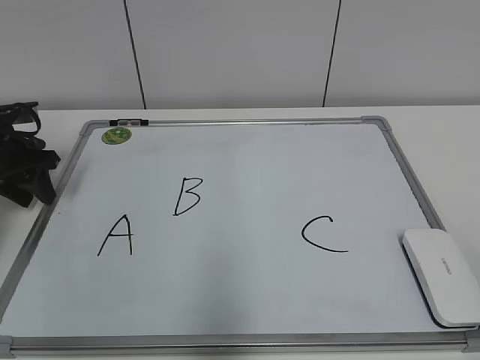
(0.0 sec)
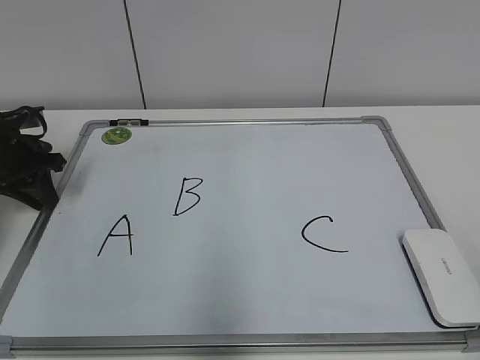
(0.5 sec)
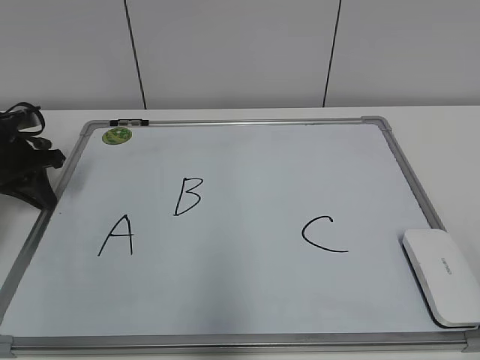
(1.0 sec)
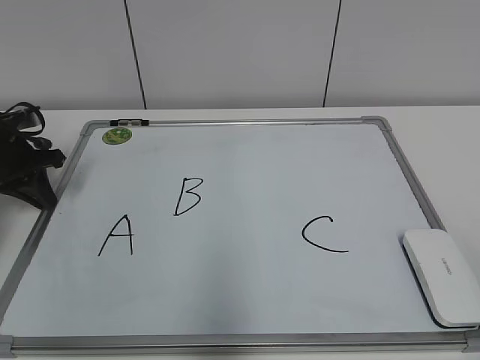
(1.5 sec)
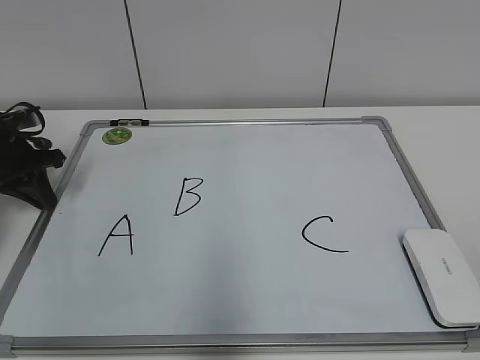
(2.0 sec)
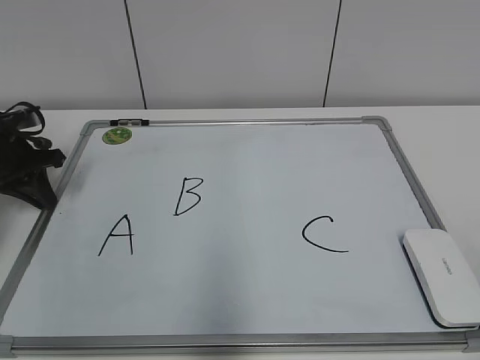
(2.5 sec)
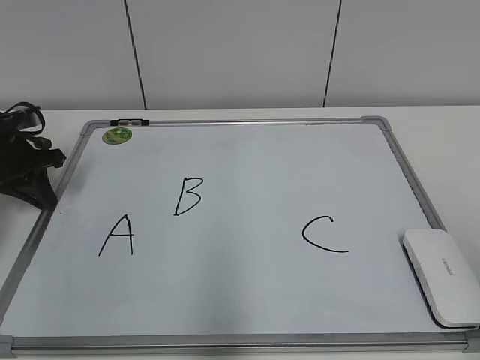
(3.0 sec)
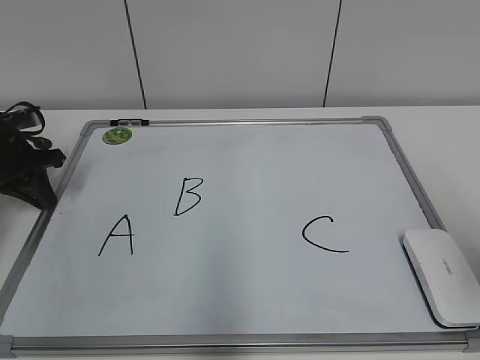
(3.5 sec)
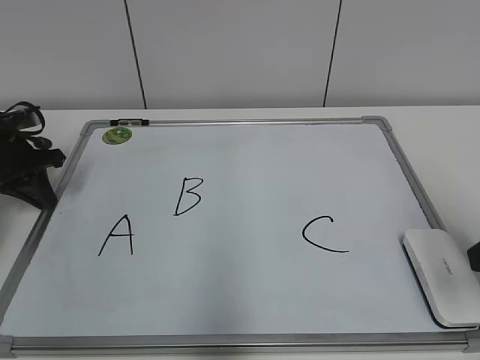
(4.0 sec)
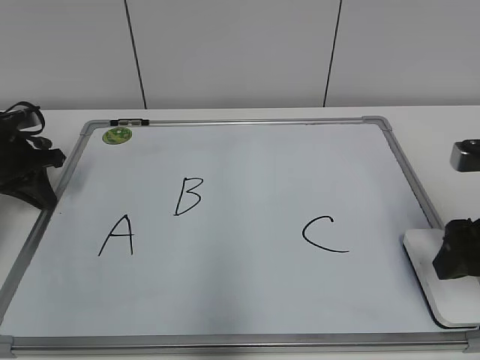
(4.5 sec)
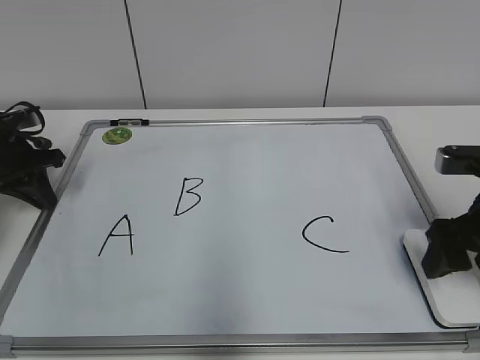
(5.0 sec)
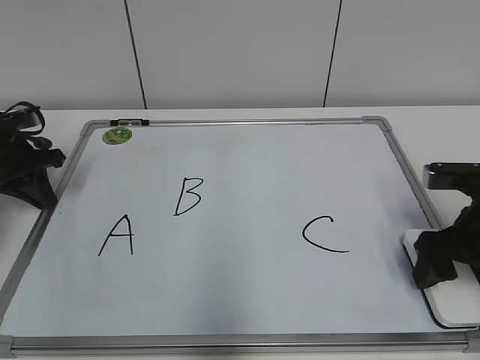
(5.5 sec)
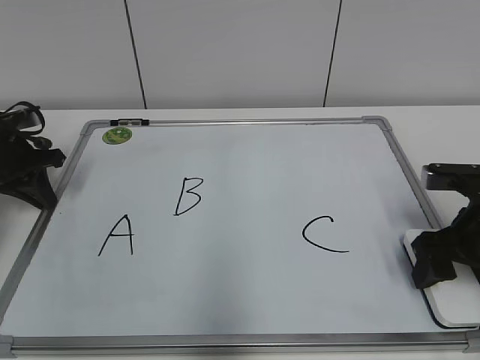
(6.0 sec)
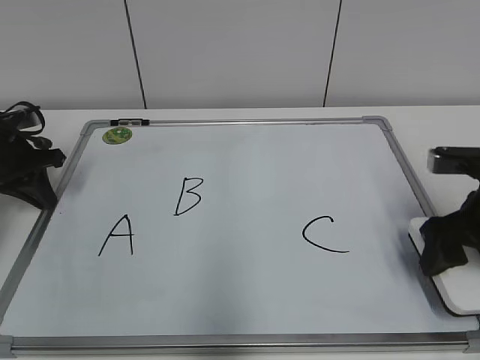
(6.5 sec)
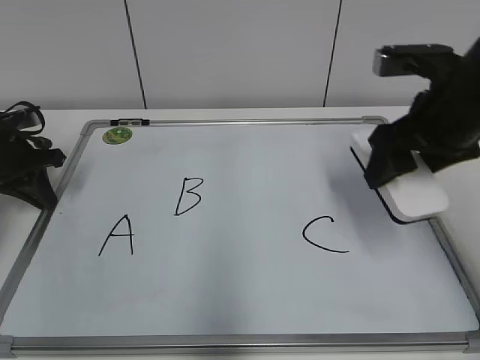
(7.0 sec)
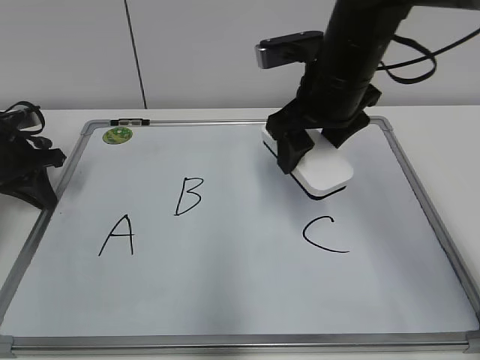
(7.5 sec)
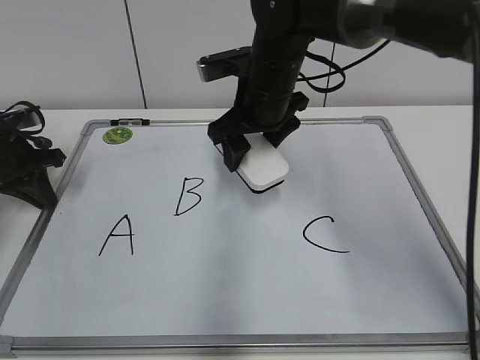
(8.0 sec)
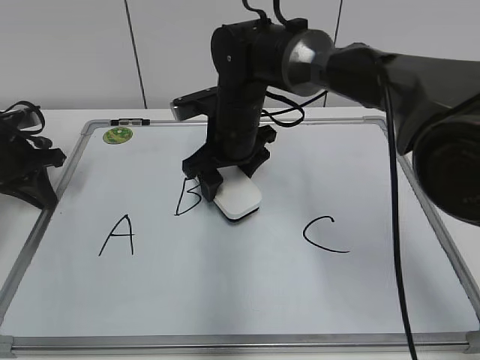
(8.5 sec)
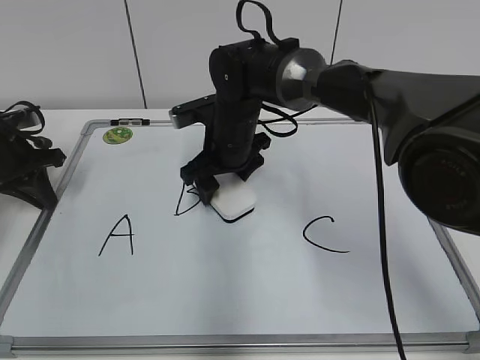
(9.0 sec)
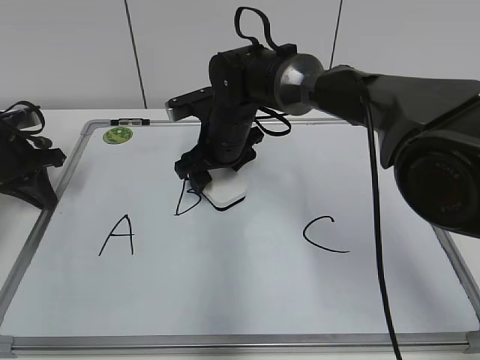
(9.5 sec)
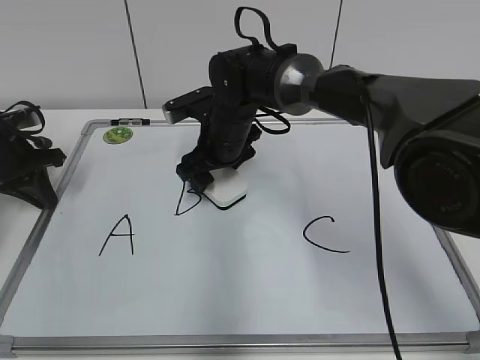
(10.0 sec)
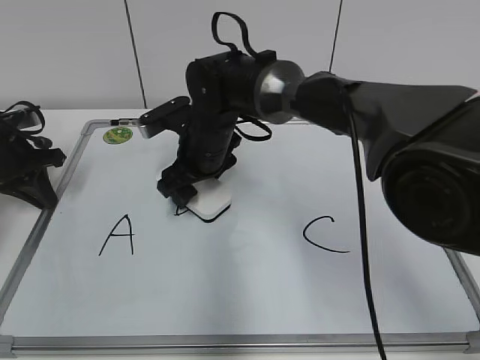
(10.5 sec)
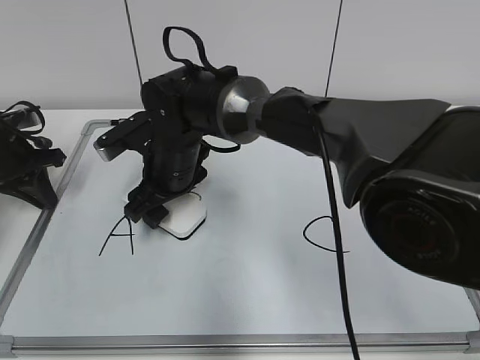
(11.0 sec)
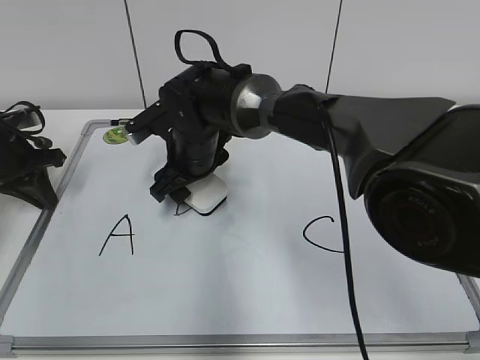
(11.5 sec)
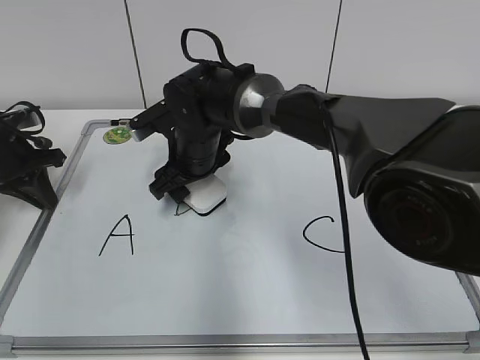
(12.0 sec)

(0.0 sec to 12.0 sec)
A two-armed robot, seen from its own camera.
Task of the whole recording: pick up the eraser on the blackboard and erase the letter "B".
Step, 1.0 sec - 6.0 sec: Grab the eraser with your right hand.
0.0 sec - 2.0 sec: The left gripper closes its fingers.
2.0 sec - 4.0 sec: The right gripper moves forward, roughly 20 cm.
4.0 sec - 6.0 sec: The right gripper heads forward and downward, covering some 10 cm.
6.0 sec - 8.0 sec: The right gripper heads to the left and forward, covering some 25 cm.
8.0 sec - 10.0 sec: The right gripper moves downward, about 10 cm.

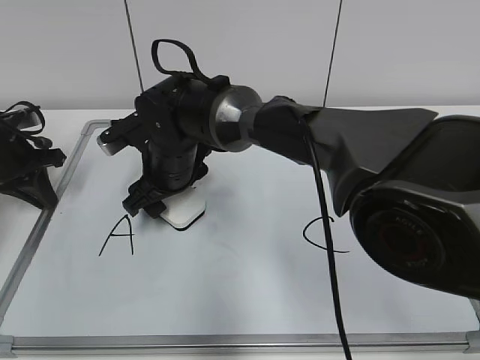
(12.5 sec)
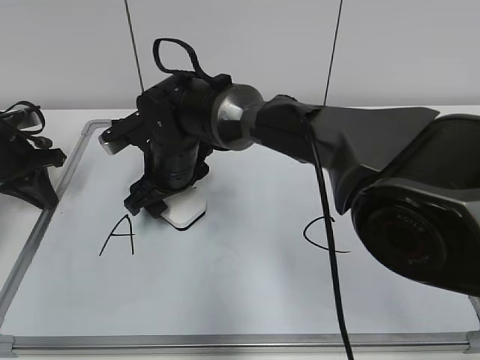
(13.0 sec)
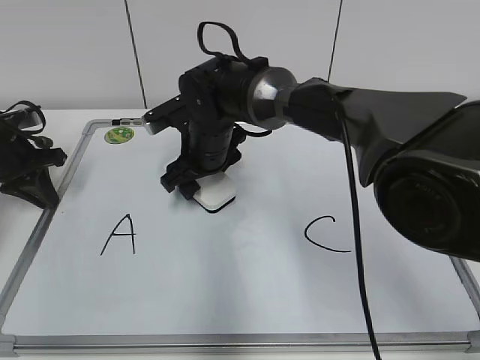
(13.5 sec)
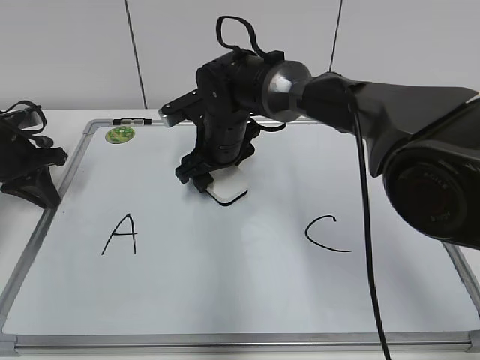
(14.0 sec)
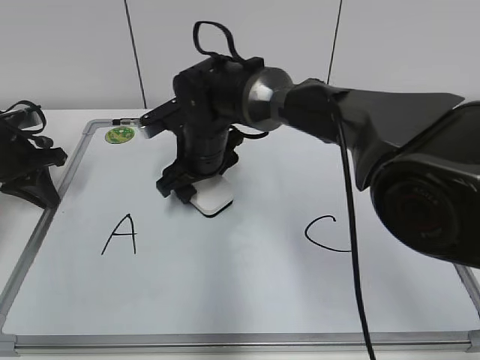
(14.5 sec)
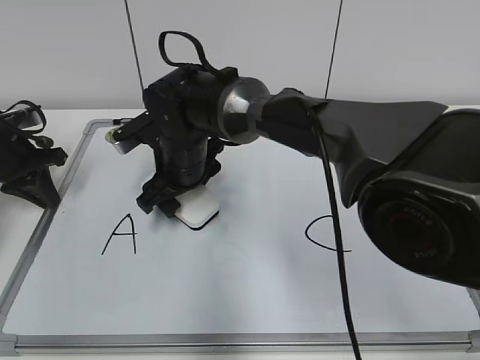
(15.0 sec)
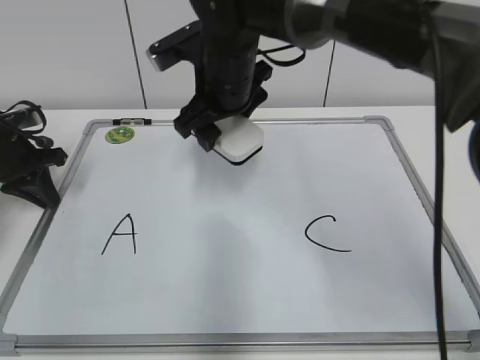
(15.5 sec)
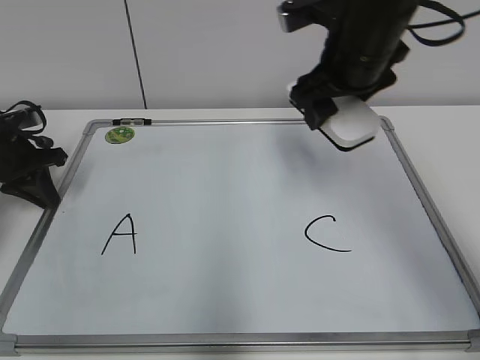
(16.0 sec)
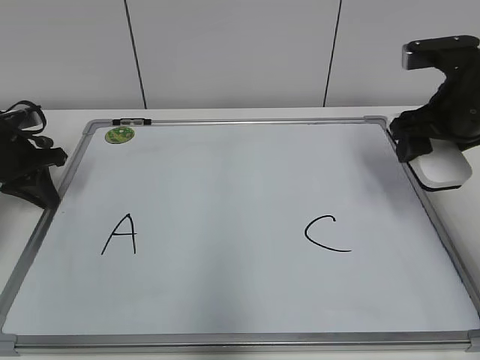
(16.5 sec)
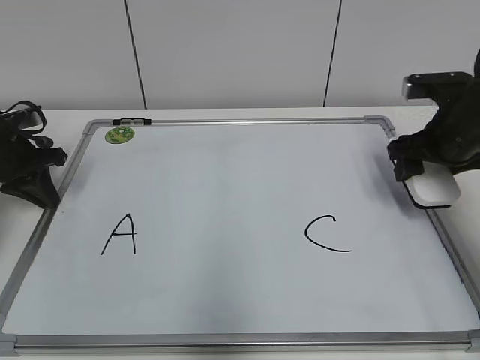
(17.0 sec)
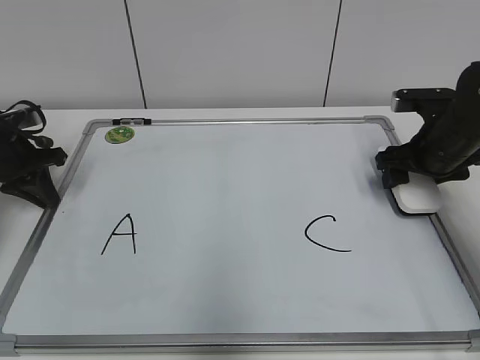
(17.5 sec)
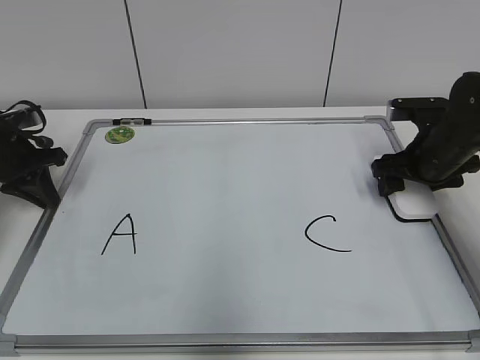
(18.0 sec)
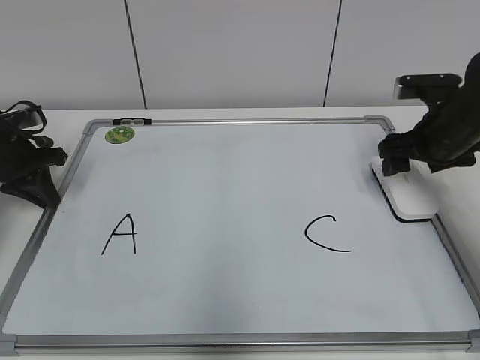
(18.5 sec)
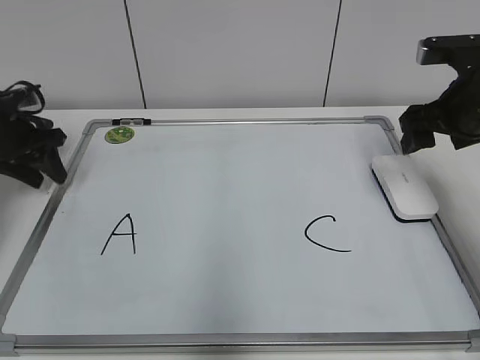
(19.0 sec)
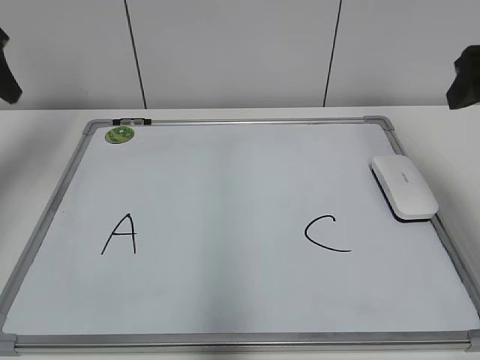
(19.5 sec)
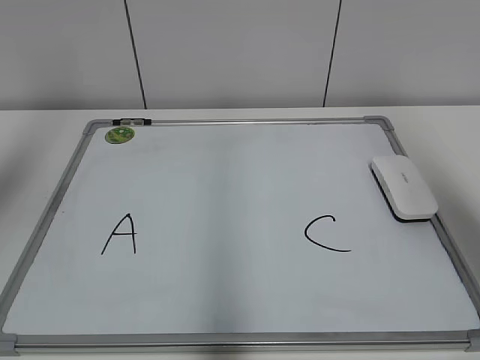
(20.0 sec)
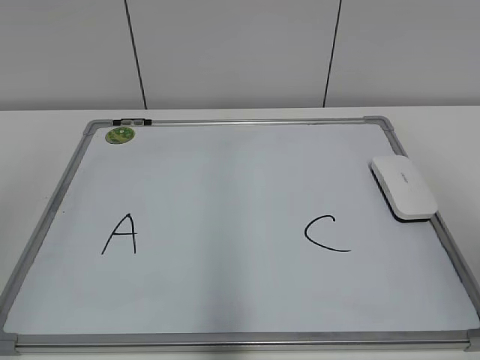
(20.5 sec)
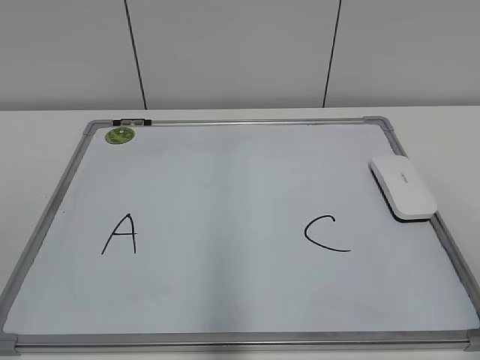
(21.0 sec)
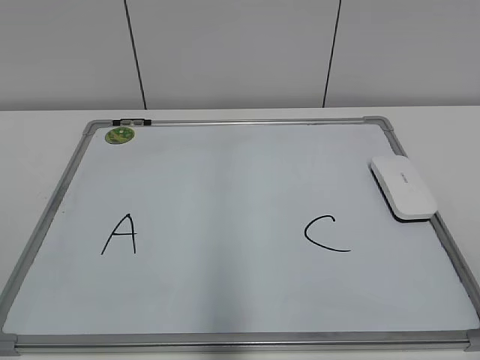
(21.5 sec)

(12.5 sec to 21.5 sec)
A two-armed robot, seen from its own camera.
Task of the whole recording: pick up the eraser on the blackboard and erase the letter "B".
Step, 12.5 sec - 15.0 sec: Erase the letter B with your right hand.
Step, 15.5 sec - 17.5 sec: Put down the eraser with your right hand.
14.5 sec - 17.0 sec: The right gripper heads to the right, covering approximately 30 cm.
17.0 sec - 19.5 sec: The right gripper travels upward and backward by approximately 15 cm. Meanwhile the left gripper shifts some 20 cm upward, and opens its fingers.
19.5 sec - 21.5 sec: Both grippers travel together backward, approximately 35 cm.

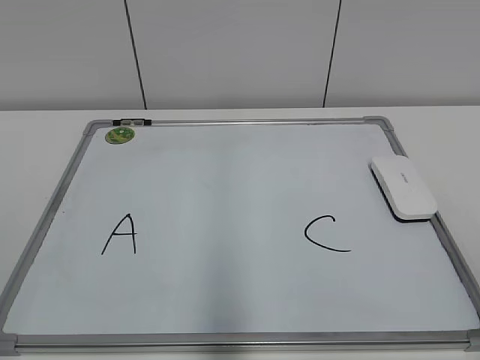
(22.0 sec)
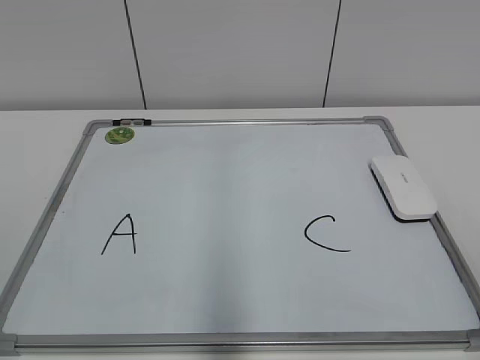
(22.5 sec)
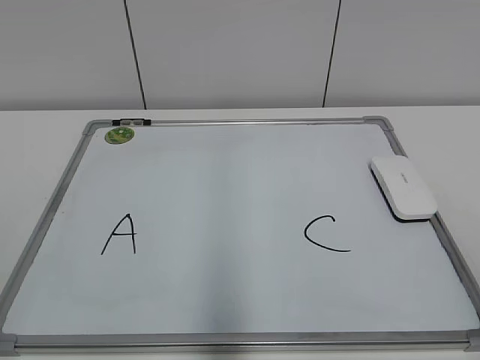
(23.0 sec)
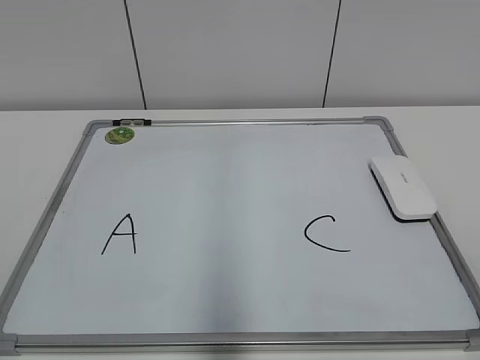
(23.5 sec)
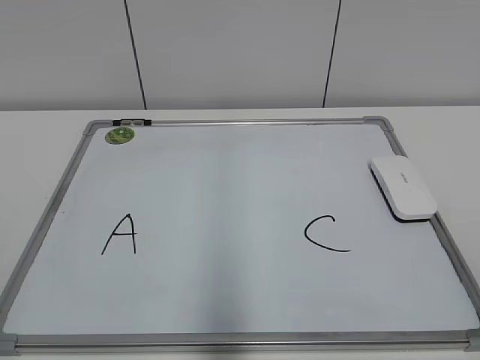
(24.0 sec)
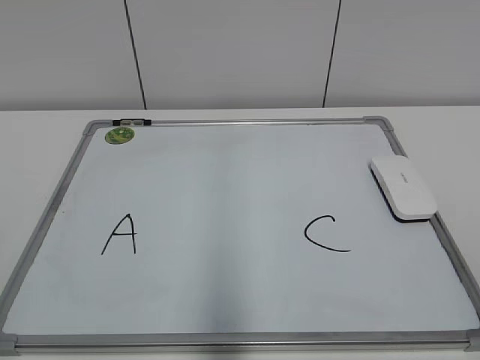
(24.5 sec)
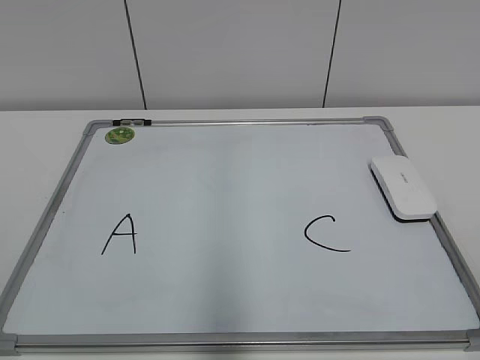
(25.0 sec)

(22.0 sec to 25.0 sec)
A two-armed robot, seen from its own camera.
Task of the whole recording: pick up the eraser on the blackboard and erase the letter "B".
23.5 sec - 25.0 sec: Both grippers stay put.

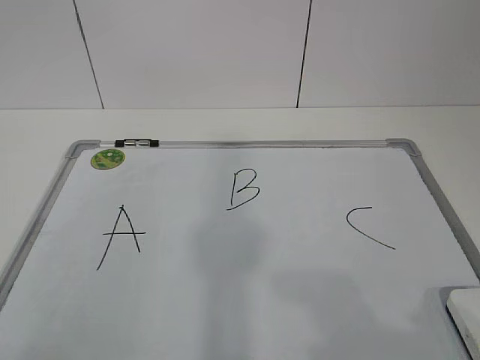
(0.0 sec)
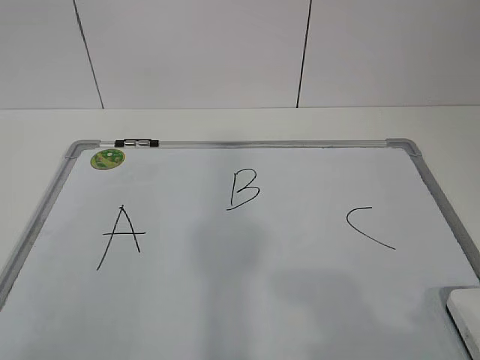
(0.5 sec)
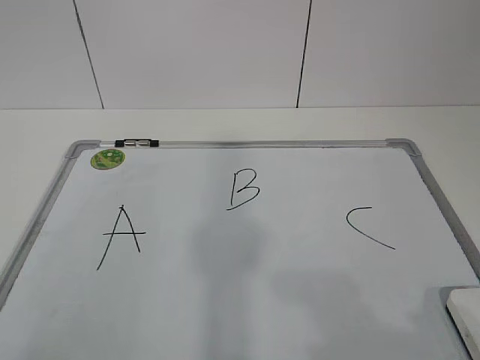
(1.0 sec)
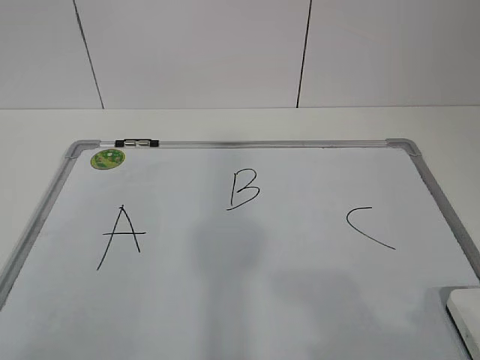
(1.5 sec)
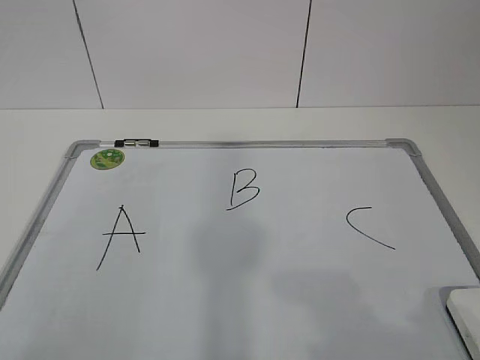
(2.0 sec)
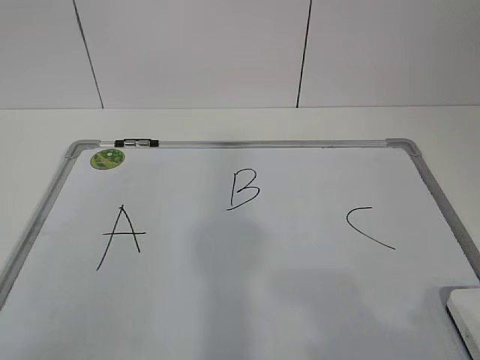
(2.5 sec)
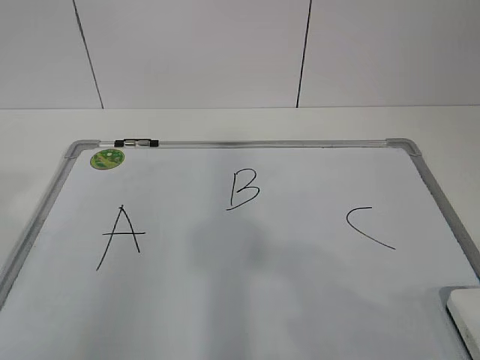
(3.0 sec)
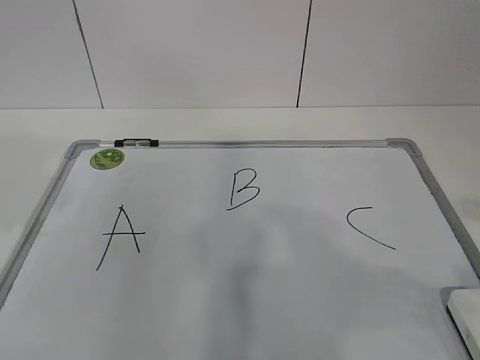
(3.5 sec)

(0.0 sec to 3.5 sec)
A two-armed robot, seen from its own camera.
Task of the whole recording: pick up the eraser on the blackboard and erase the letter "B".
2.0 sec - 3.5 sec: The right gripper heads forward, covering about 5 cm; the left gripper shifts approximately 20 cm forward.
